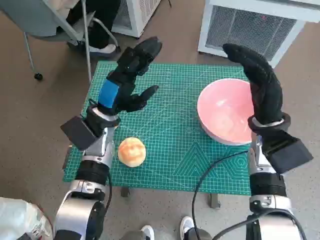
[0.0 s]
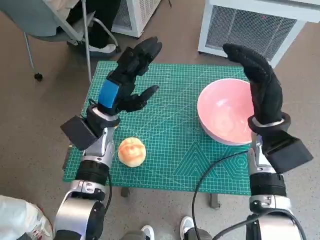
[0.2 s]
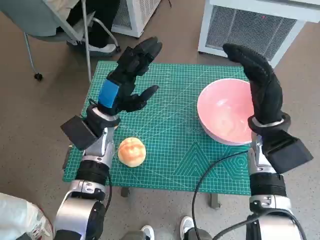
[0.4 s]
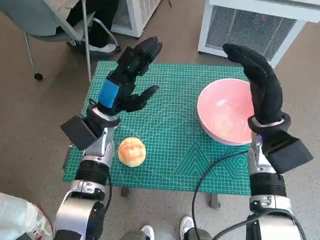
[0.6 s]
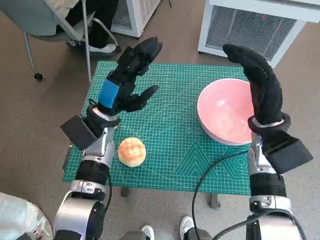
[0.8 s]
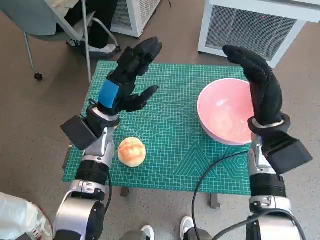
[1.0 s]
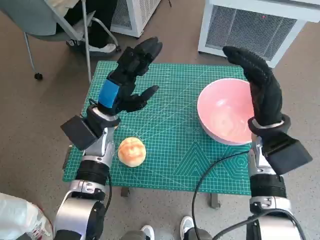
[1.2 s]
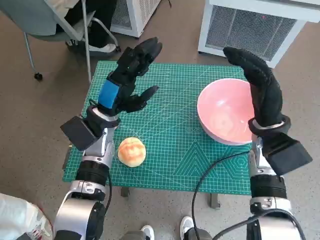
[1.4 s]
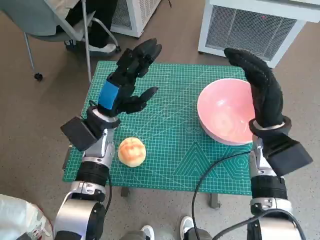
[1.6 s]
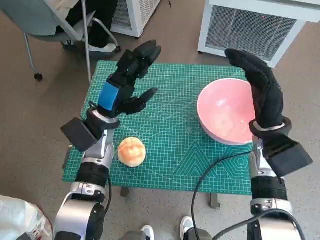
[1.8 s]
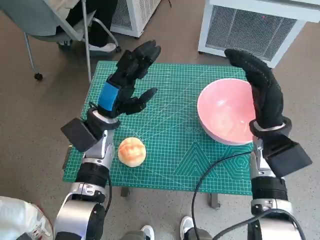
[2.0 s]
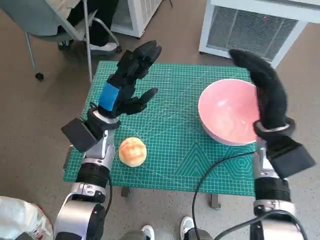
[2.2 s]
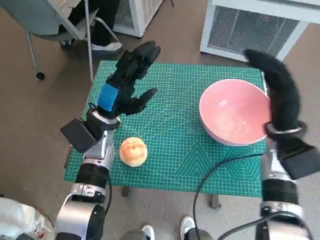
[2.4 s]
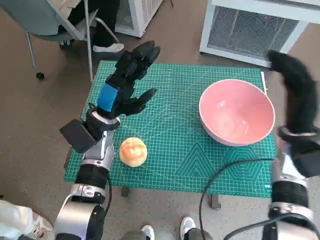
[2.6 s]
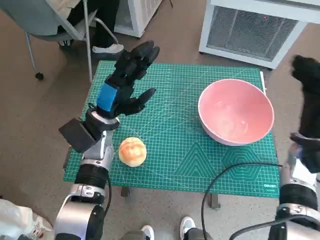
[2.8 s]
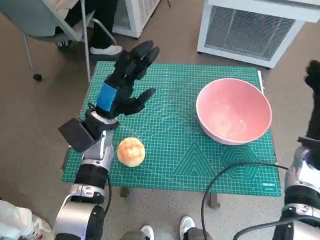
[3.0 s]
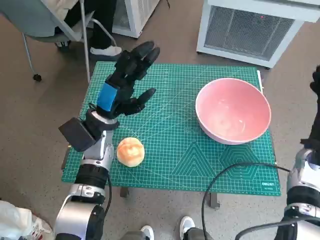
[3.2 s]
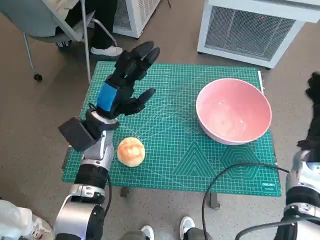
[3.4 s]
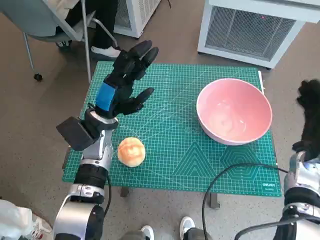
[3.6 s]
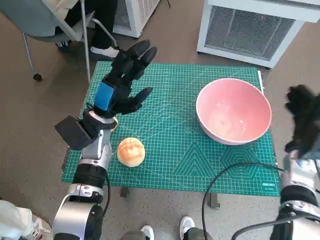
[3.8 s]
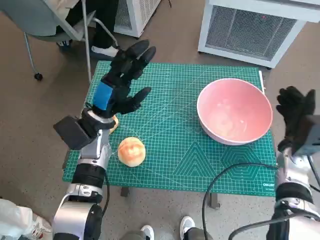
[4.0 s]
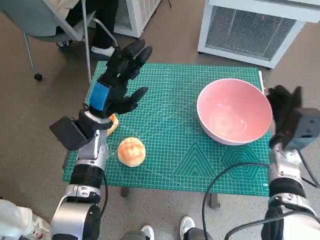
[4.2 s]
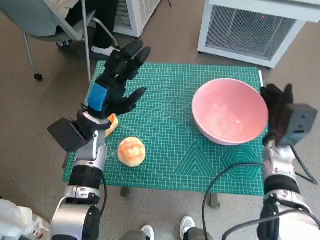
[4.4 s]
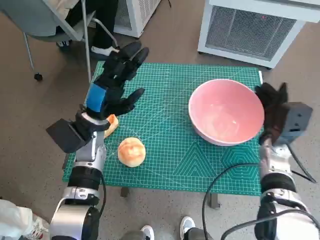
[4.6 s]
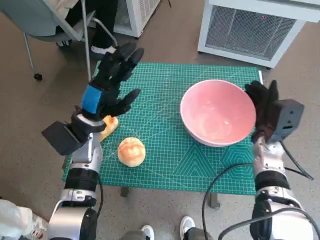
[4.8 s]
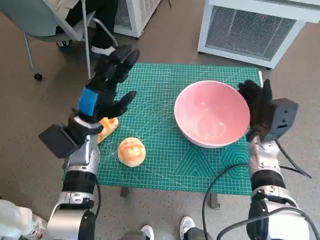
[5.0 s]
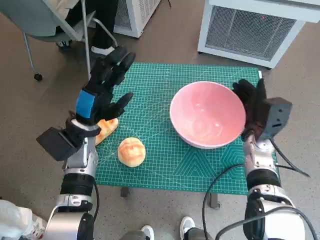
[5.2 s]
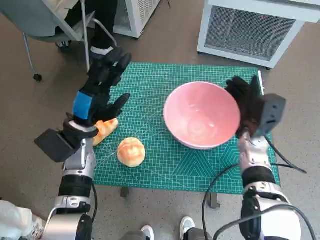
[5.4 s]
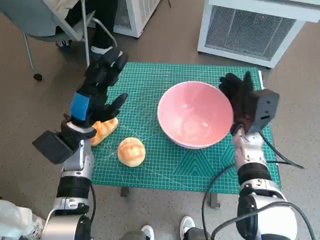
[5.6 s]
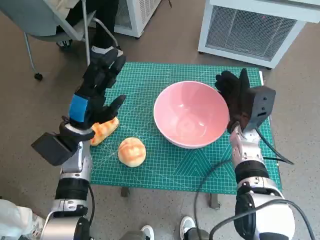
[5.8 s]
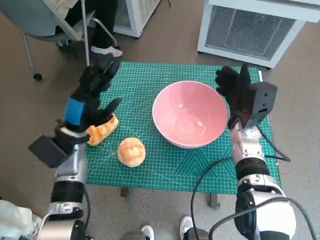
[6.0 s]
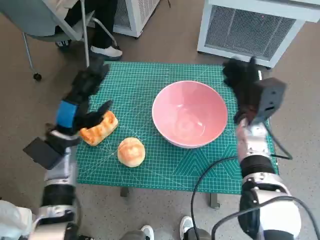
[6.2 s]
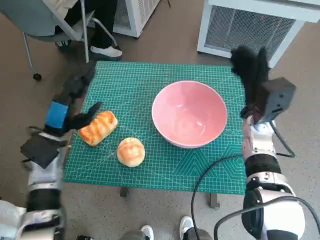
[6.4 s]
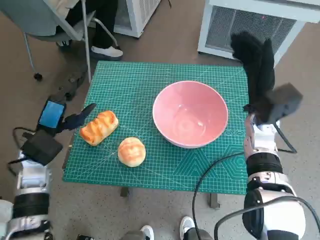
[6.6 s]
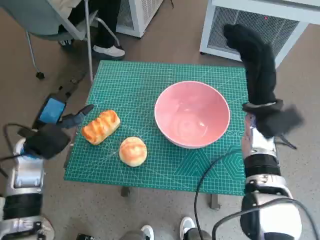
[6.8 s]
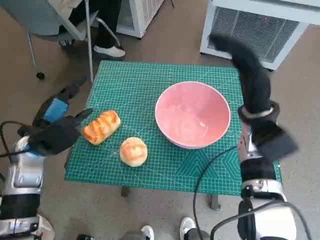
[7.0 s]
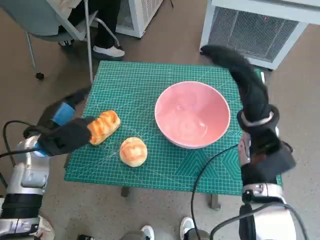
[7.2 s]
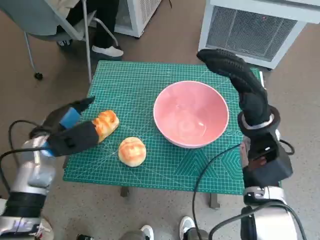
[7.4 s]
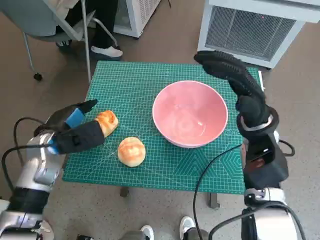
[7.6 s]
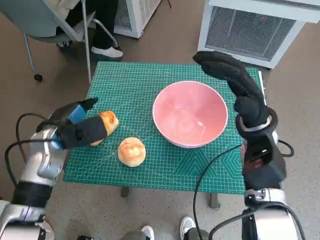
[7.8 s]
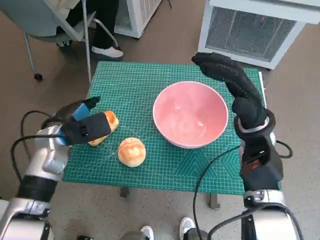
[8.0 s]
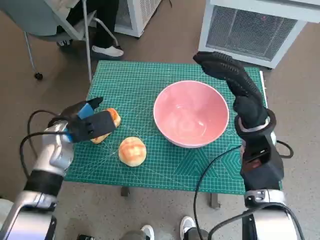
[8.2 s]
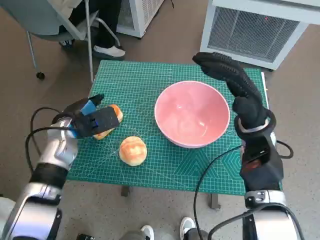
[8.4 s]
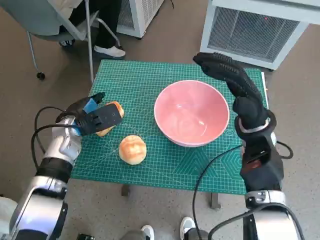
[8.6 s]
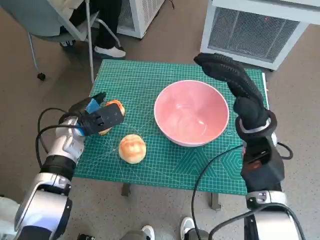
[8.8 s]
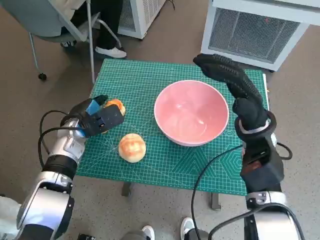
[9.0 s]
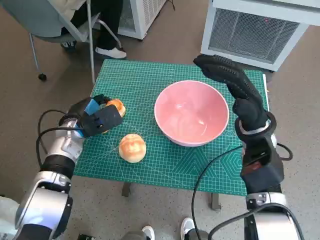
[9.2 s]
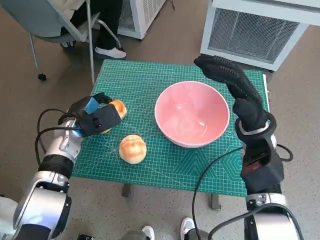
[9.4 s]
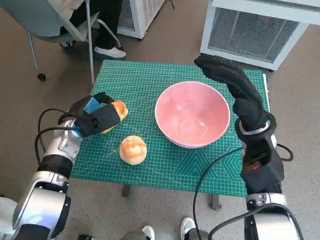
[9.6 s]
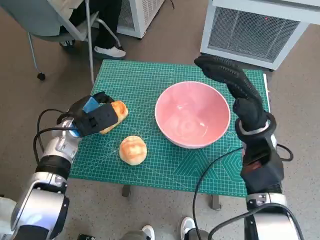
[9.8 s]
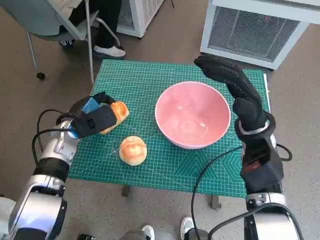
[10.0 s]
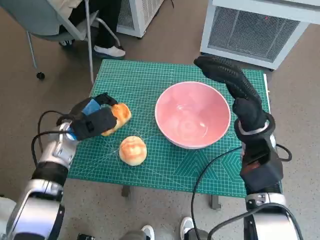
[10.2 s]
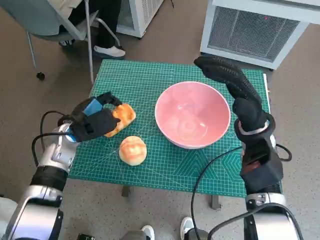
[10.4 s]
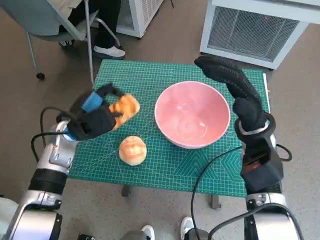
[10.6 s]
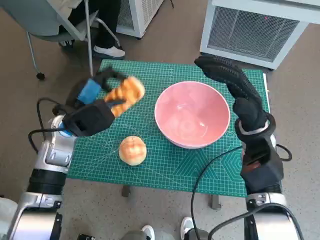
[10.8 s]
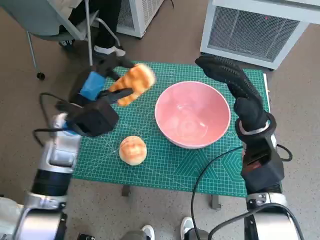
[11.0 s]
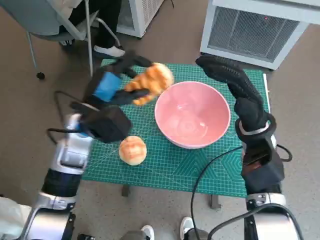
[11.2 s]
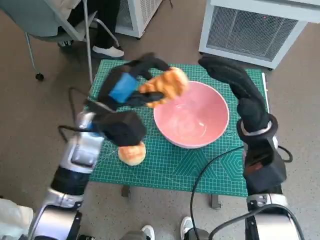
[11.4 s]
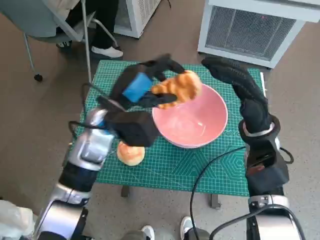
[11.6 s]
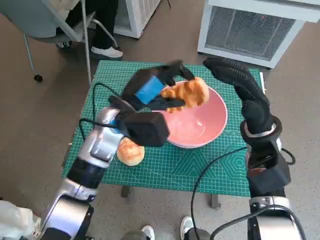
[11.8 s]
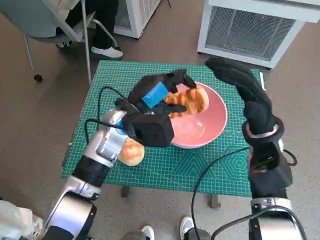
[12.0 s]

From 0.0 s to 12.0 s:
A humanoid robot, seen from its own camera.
Task of the whole recording: Push the bowl to the center of the table and put the bread into the bowl.
Step, from 0.0 s to 6.0 s: Move the pink bowl to the center of table with right hand.
Step, from 6.2 s to 9.2 s: Grasp the long bread with left hand.
From 1.6 s to 3.0 s: The right hand is displaced to the right by roughly 10 cm.
From 3.0 s to 4.4 s: The right hand shifts by roughly 5 cm.
From 4.4 s to 6.0 s: The right hand shifts some 10 cm to the left, while the left hand moves roughly 5 cm.
From 6.0 s to 7.6 s: The right hand heads upward, covering some 5 cm.
From 7.6 s to 9.0 s: The left hand heads forward, covering some 5 cm.
From 9.0 s to 10.4 s: The hands stay close to where they were, moving slightly.
From 10.4 s to 12.0 s: The left hand is displaced to the right and upward by roughly 15 cm.

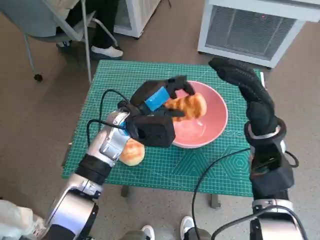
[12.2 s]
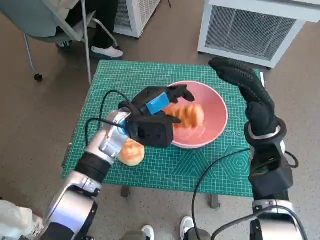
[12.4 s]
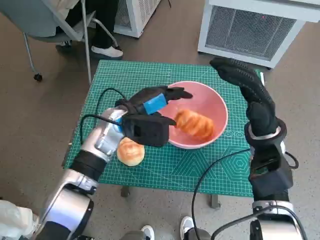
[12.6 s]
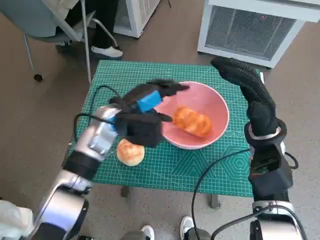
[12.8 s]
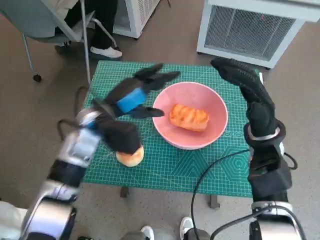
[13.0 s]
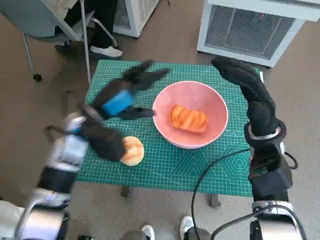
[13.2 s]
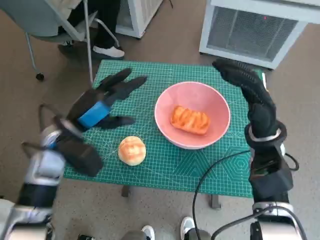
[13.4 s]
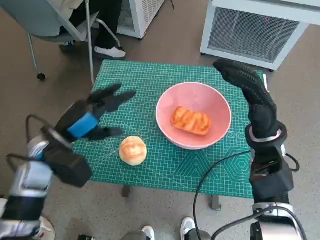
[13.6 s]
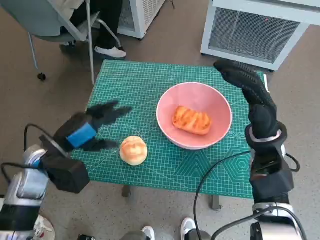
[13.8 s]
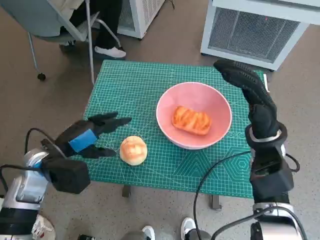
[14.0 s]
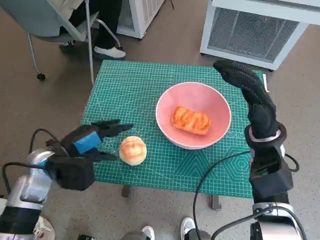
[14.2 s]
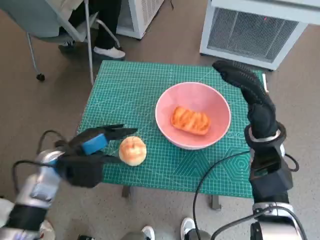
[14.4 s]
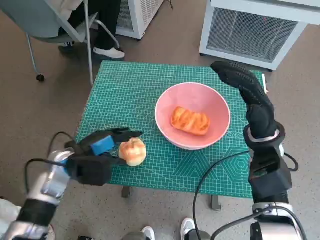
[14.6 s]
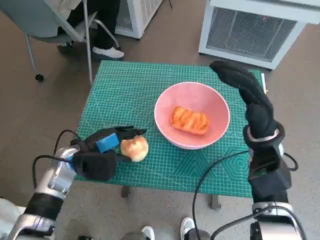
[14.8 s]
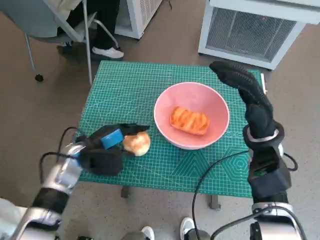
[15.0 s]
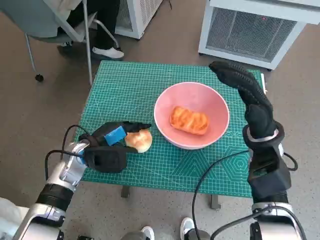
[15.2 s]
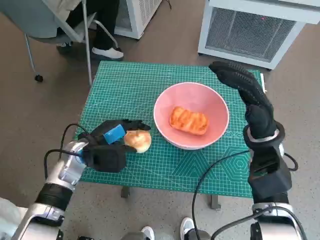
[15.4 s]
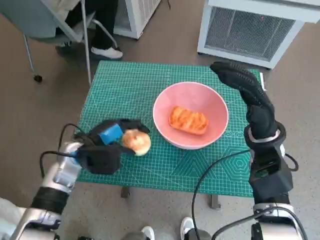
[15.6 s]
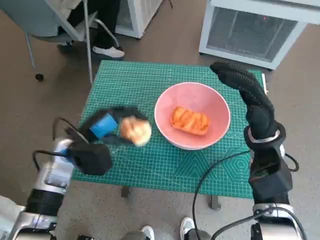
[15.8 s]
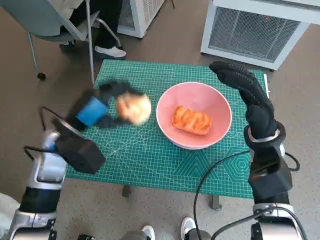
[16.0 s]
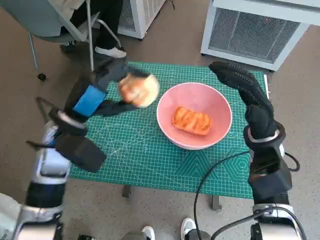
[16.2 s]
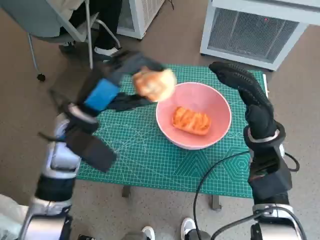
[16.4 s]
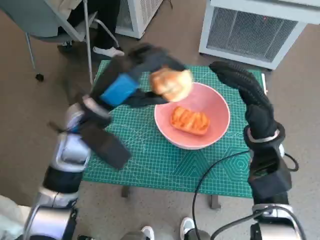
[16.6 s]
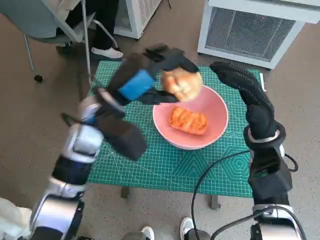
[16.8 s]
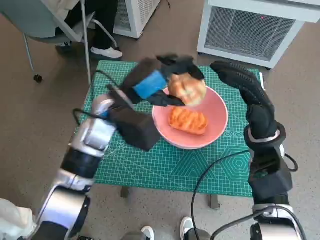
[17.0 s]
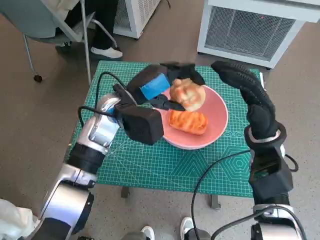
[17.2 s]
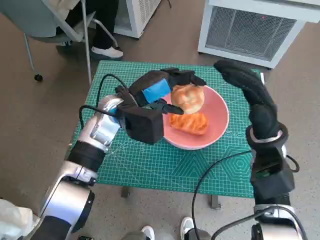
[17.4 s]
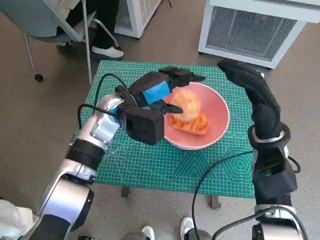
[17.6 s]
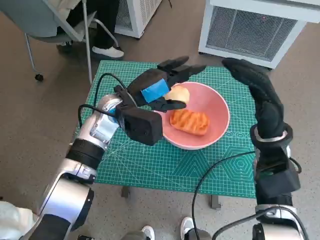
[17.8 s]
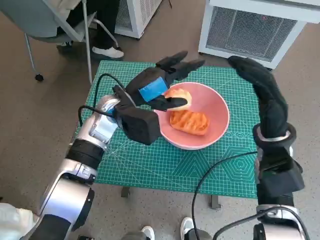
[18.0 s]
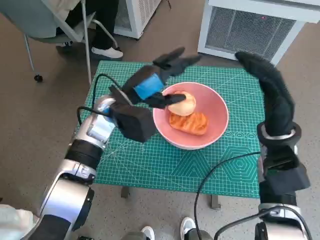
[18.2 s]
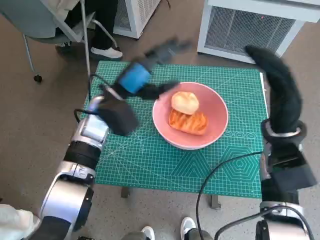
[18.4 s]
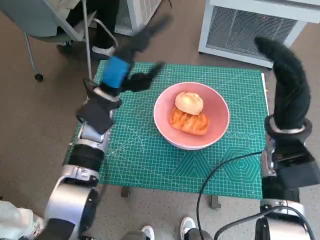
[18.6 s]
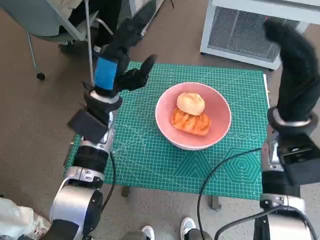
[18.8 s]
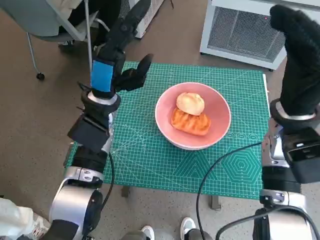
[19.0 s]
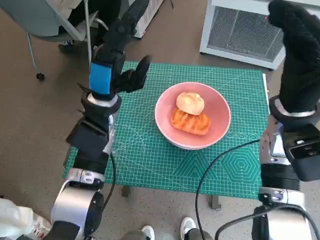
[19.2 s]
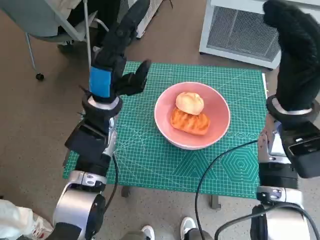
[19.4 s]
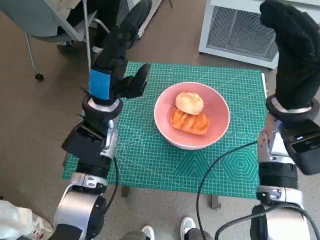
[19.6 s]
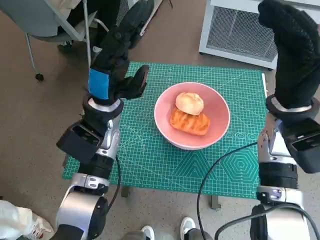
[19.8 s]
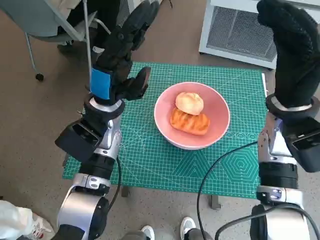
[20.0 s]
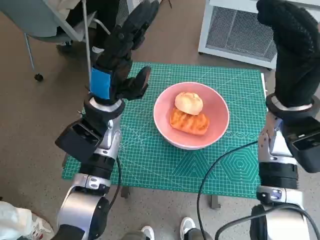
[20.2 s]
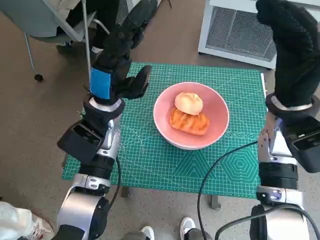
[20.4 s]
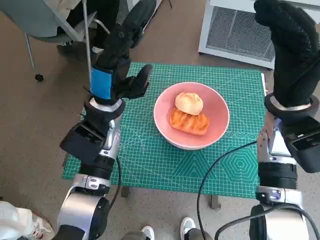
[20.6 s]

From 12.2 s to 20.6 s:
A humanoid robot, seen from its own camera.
Task of the whole recording: Push the bowl to the center of the table and put the bread into the bowl.
Step, from 12.8 s to 15.2 s: Grasp the round bread with left hand.
Step, from 15.4 s to 17.6 s: Place the round bread in pink bowl with left hand.
From 12.2 s to 13.6 s: The left hand goes approximately 15 cm to the left and backward.
From 13.6 s to 15.0 s: The left hand heads downward, covering some 5 cm.
From 15.0 s to 16.4 s: The left hand goes some 10 cm upward.
From 16.4 s to 17.8 s: The left hand travels forward and to the right by some 10 cm.
From 17.8 s to 19.2 s: The right hand heads upward, covering roughly 5 cm.
From 19.2 s to 20.6 s: The hands stay close to where they were, moving slightly.

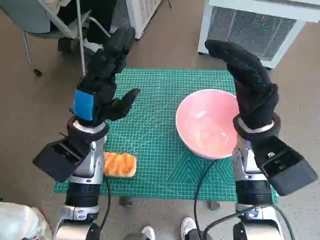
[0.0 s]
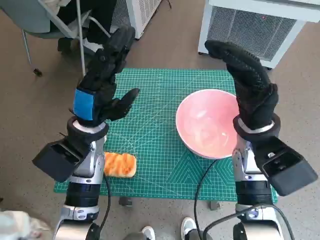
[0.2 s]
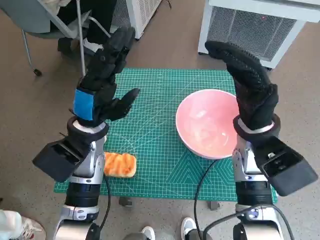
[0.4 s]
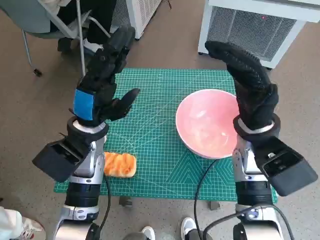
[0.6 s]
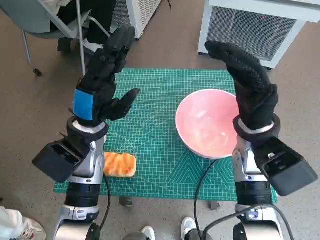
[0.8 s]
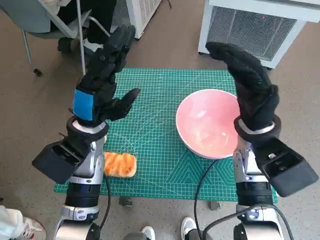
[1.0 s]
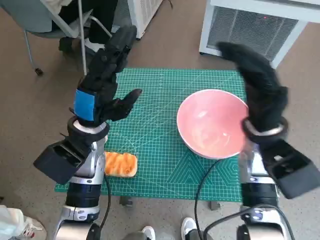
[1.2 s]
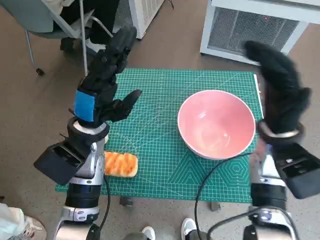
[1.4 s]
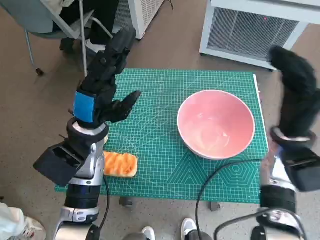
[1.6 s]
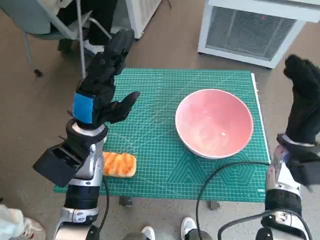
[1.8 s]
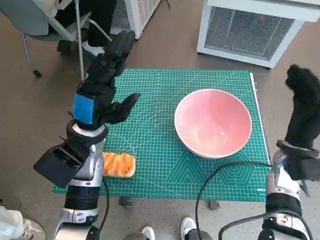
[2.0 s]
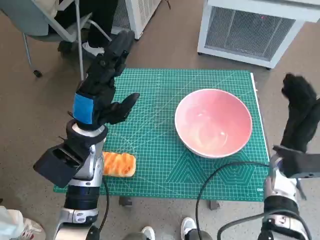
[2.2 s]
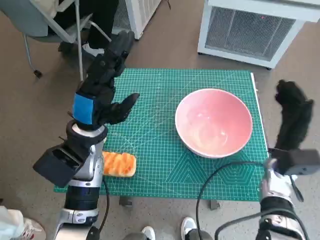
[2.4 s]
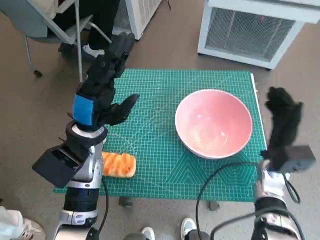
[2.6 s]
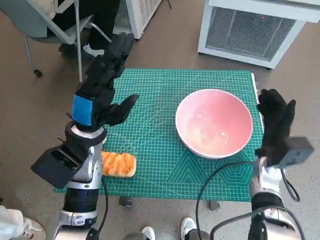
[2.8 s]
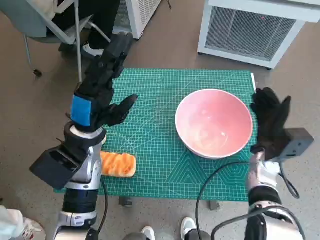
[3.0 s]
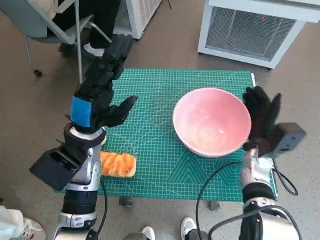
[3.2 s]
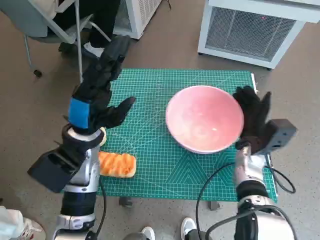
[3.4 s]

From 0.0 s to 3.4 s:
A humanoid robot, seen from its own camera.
Task of the whole recording: Push the bowl to the center of the table and put the bread into the bowl.
From 1.6 s to 3.4 s: The right hand travels downward by some 10 cm.
